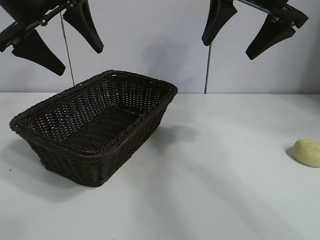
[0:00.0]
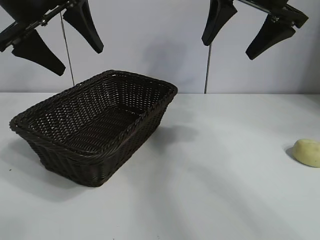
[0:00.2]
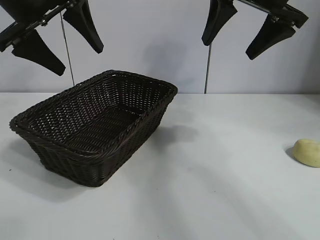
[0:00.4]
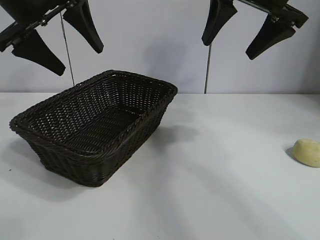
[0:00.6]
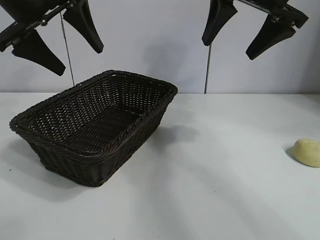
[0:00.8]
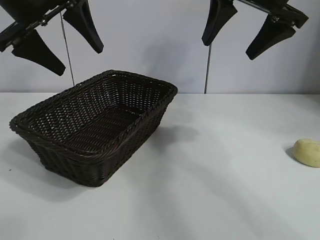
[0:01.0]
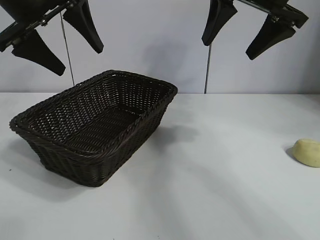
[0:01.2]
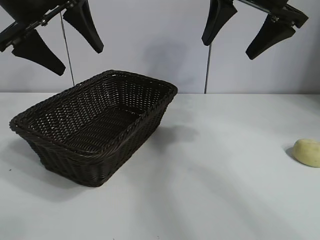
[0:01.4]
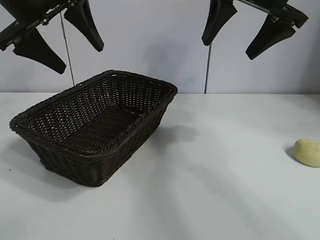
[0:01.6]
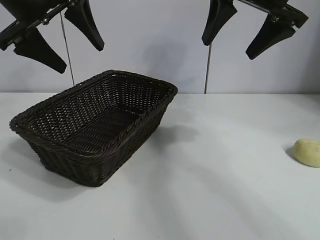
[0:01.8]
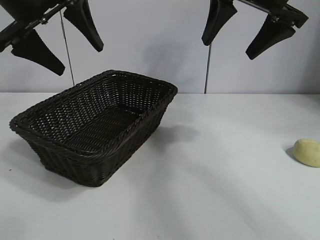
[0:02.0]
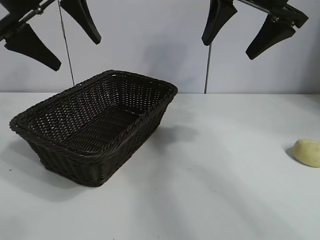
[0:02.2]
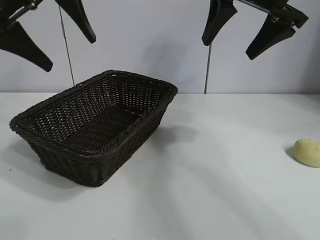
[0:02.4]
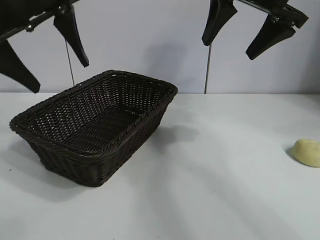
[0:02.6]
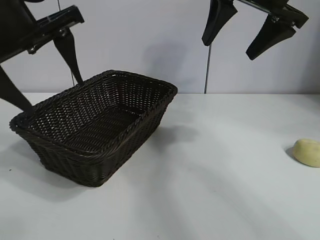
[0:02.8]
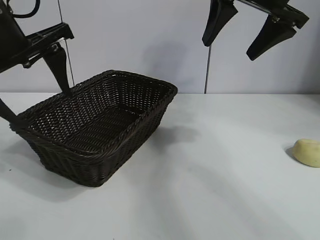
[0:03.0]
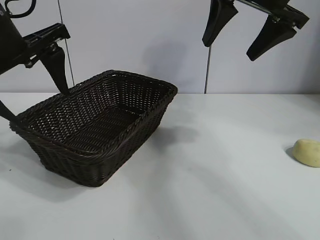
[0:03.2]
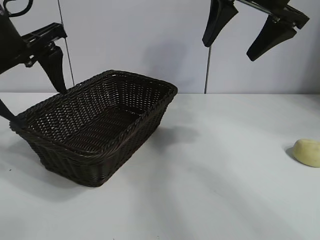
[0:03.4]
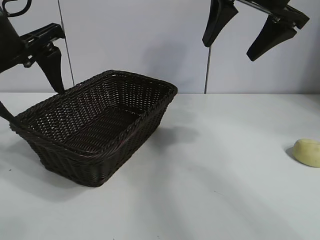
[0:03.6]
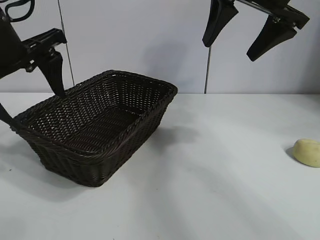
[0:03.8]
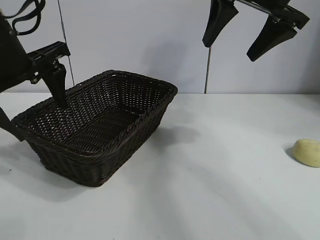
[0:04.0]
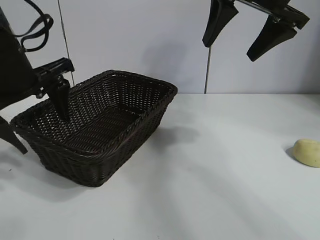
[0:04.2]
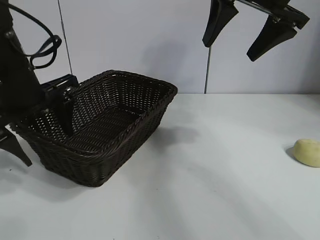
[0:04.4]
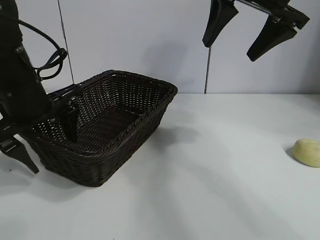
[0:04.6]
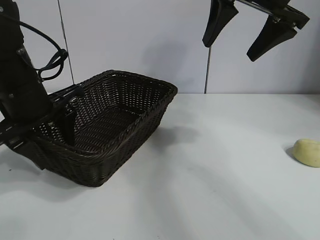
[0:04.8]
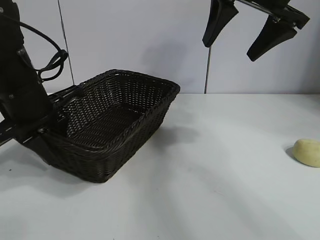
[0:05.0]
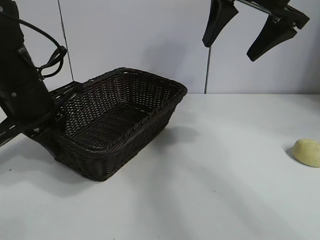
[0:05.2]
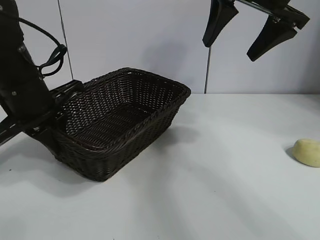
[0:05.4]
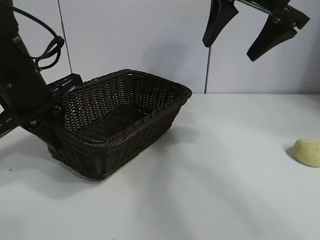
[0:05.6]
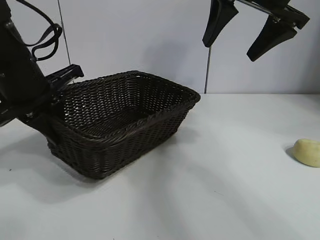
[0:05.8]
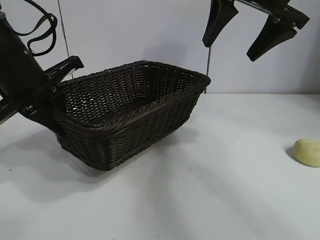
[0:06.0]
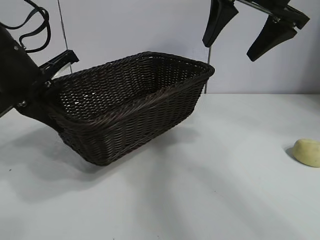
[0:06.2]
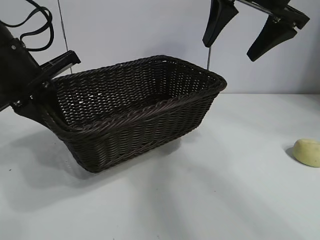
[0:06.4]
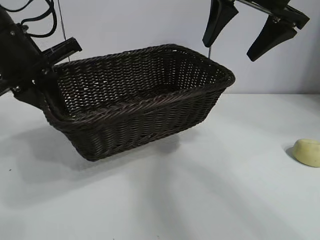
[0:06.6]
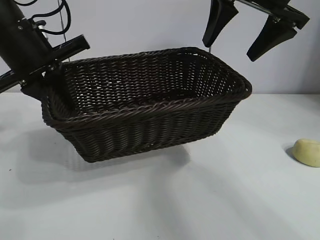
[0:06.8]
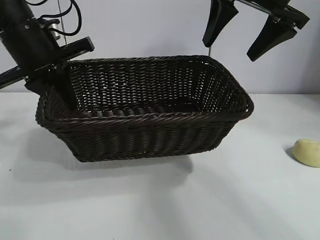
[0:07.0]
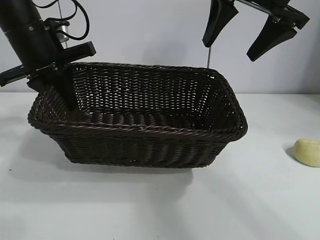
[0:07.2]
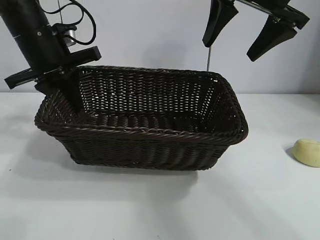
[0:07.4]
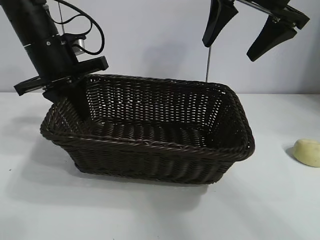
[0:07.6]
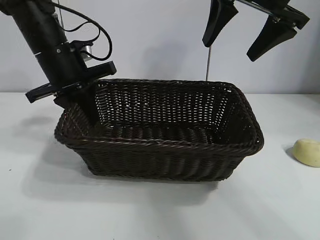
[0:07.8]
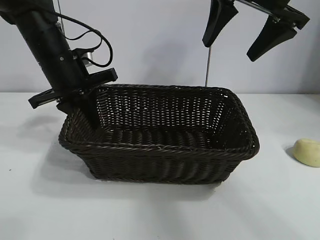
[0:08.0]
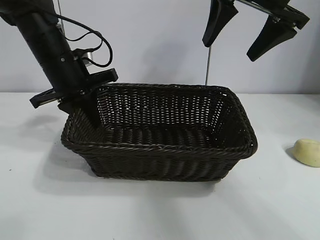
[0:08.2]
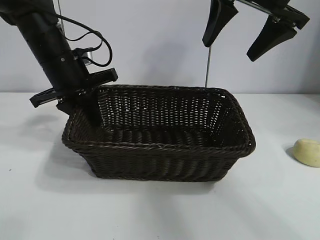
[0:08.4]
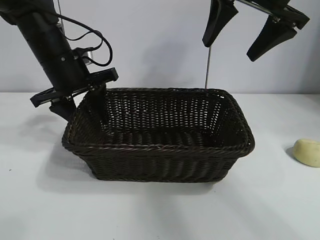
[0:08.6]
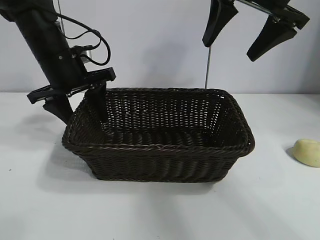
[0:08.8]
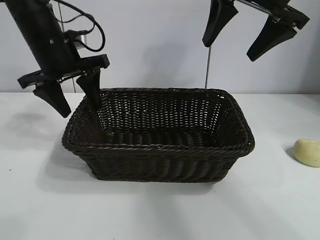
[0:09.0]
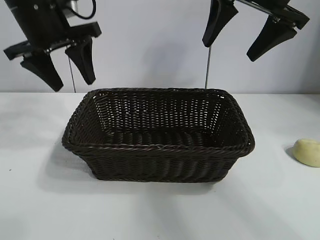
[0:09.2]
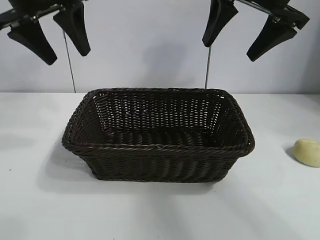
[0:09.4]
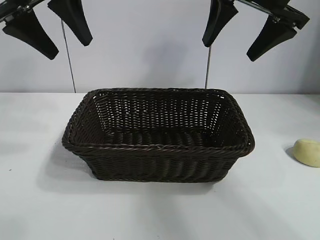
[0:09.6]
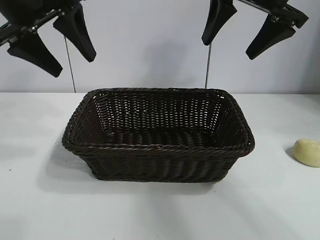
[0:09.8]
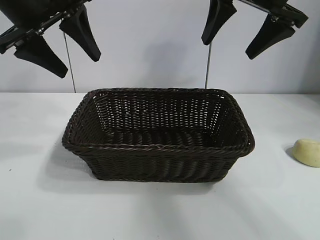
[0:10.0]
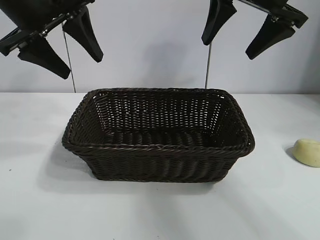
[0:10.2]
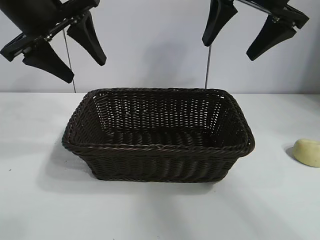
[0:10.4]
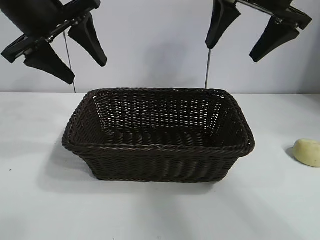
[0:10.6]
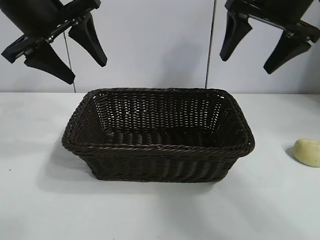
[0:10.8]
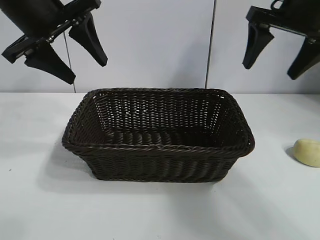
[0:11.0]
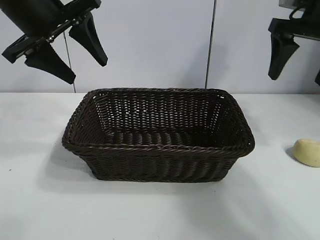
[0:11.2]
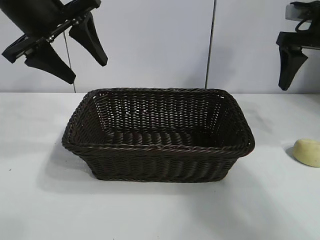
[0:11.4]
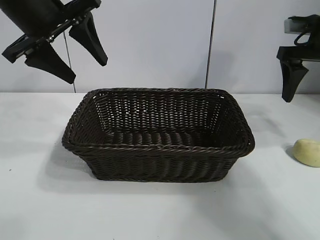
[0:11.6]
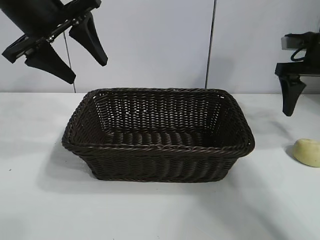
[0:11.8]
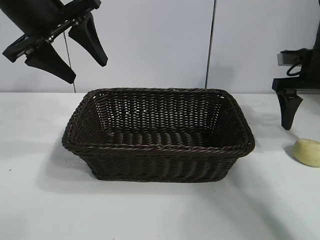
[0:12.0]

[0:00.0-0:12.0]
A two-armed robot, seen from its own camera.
Task of the whole recording: pick up the egg yolk pastry and put it into the basket.
Step, 1.4 to 5.0 s: Grasp the basket with left gripper.
Step, 5.4 to 8.6 s: Place the basket in the center of view with left gripper.

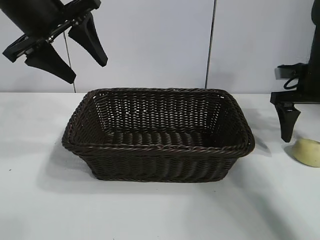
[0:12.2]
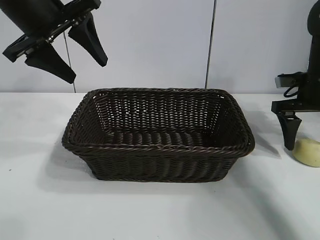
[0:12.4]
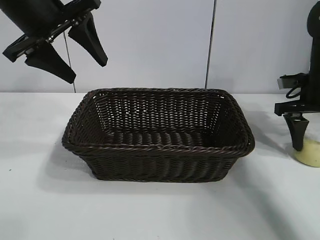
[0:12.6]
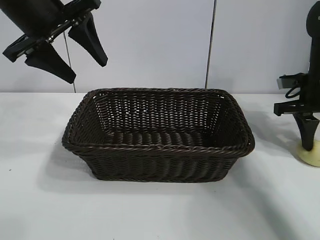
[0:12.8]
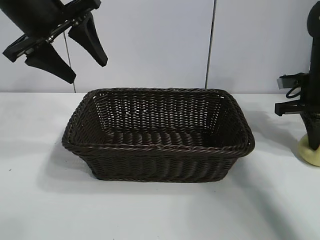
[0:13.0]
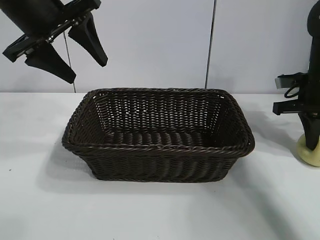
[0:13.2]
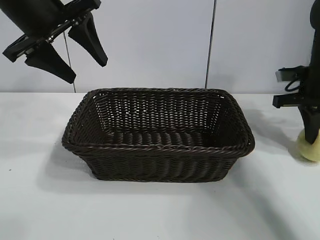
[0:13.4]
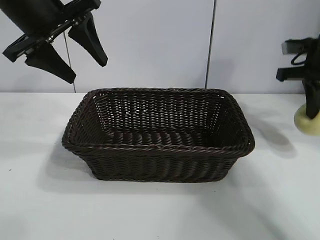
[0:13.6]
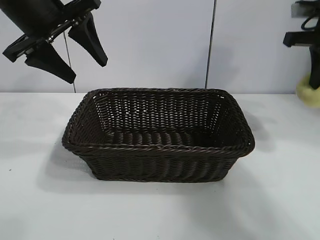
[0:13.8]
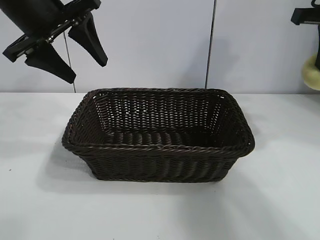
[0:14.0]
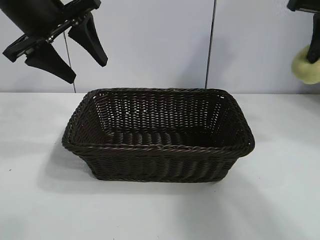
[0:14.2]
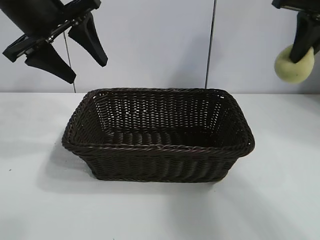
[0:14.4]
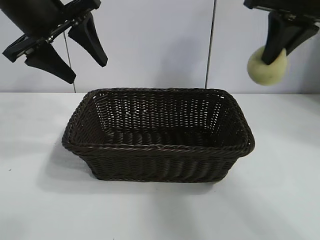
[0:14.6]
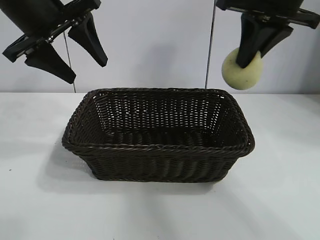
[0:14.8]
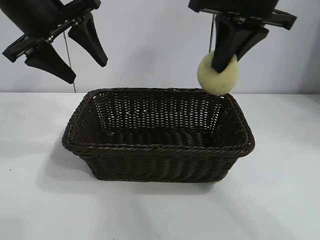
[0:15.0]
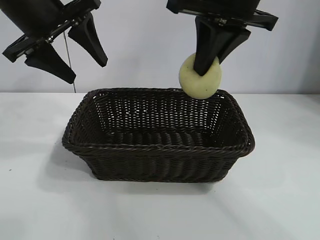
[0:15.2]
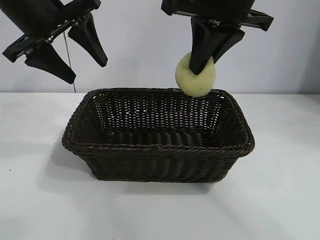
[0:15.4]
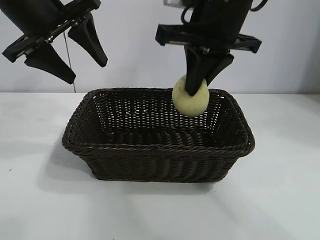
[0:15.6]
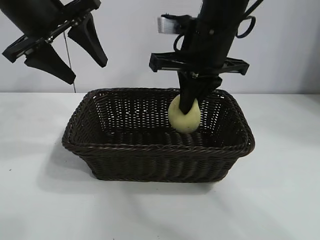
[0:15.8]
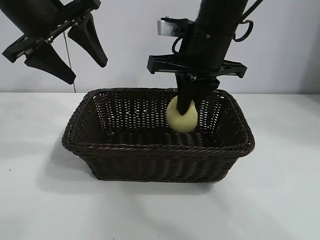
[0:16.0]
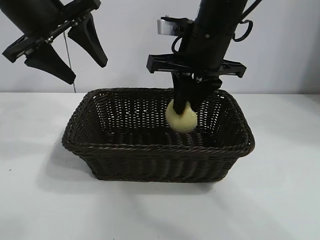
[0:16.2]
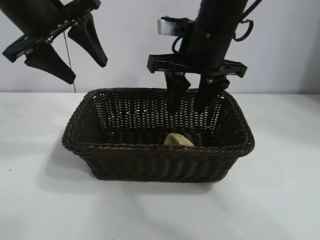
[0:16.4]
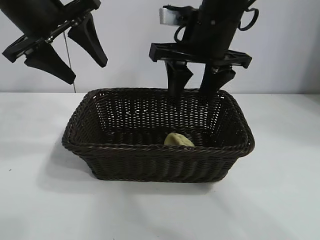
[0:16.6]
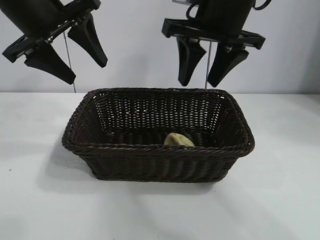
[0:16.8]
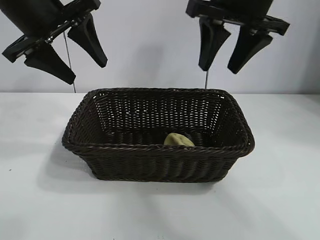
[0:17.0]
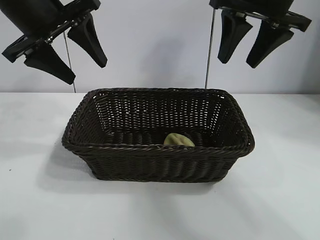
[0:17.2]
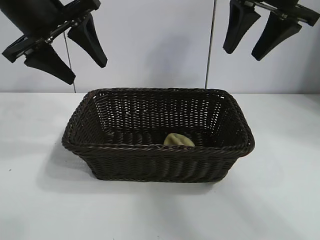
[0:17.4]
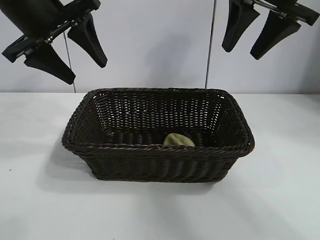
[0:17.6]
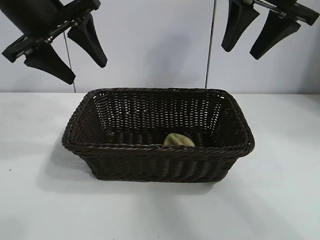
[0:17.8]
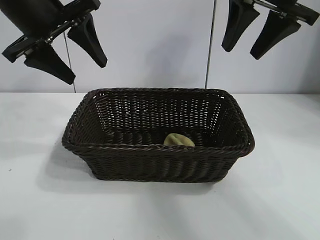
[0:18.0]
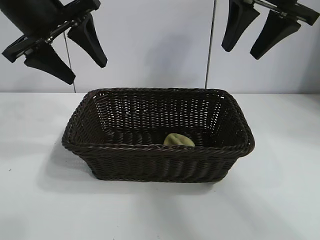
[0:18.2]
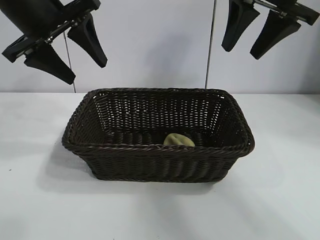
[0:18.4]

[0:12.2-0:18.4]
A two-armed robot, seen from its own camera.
Task of the whole recording: pick up the egg yolk pastry and put it into the basket.
Step, 13.4 to 16.4 s: Place the egg yolk pastry in the basket with right gripper.

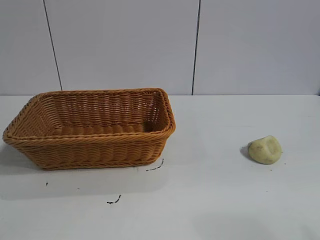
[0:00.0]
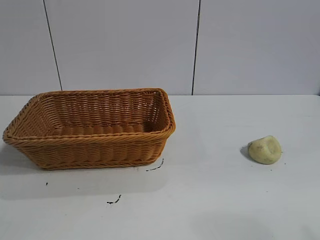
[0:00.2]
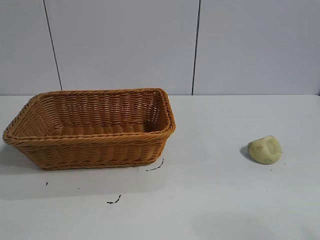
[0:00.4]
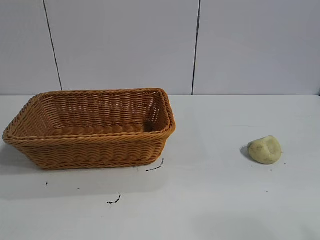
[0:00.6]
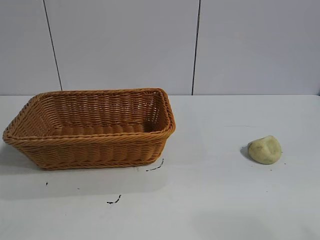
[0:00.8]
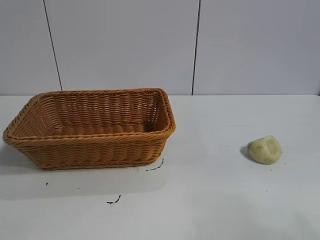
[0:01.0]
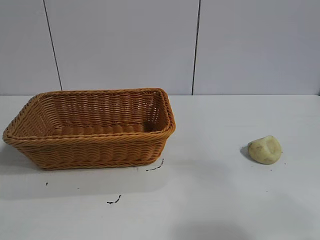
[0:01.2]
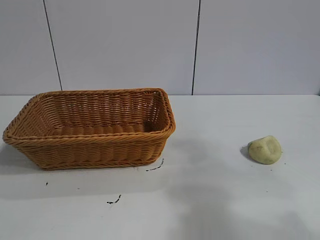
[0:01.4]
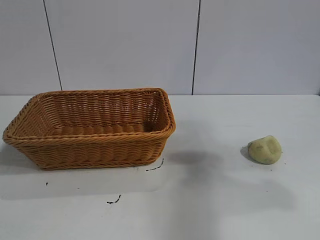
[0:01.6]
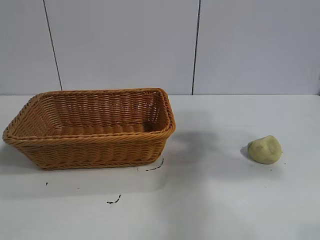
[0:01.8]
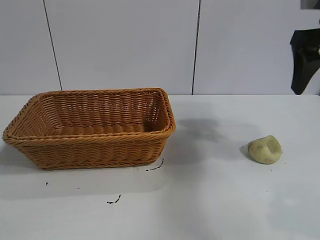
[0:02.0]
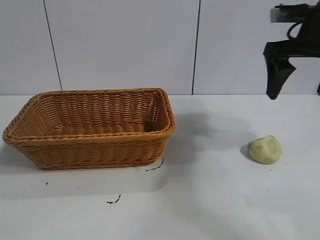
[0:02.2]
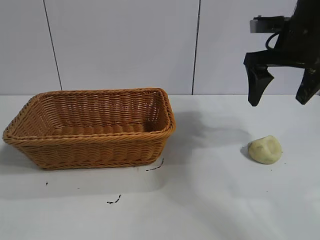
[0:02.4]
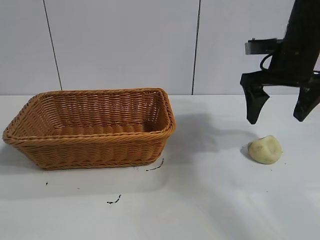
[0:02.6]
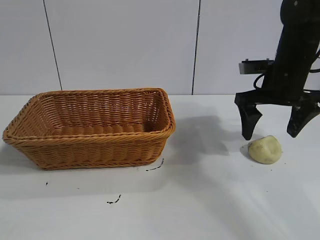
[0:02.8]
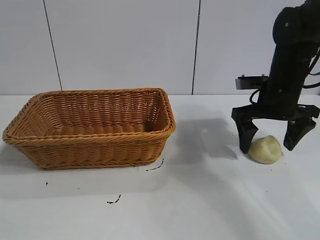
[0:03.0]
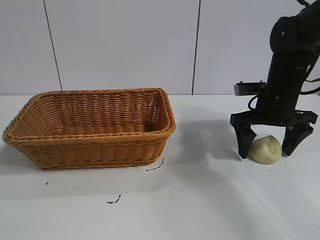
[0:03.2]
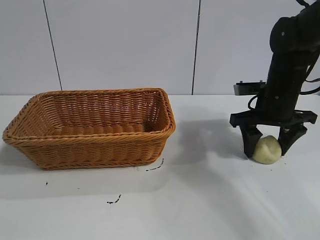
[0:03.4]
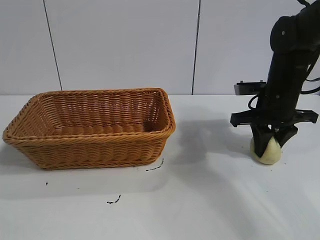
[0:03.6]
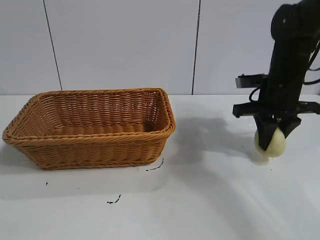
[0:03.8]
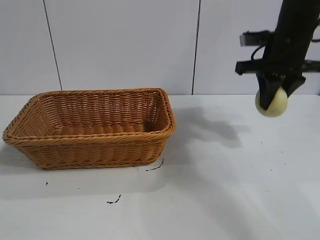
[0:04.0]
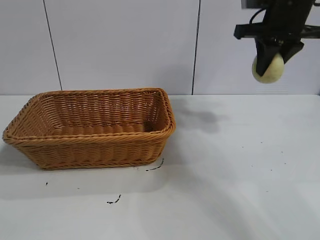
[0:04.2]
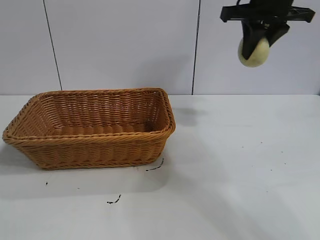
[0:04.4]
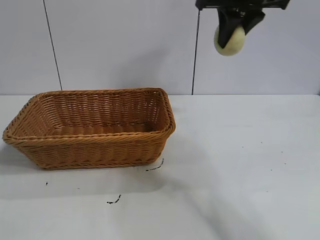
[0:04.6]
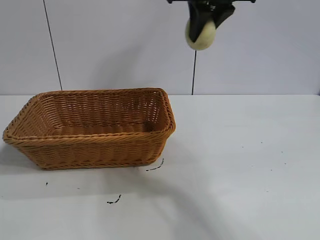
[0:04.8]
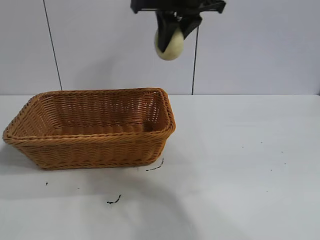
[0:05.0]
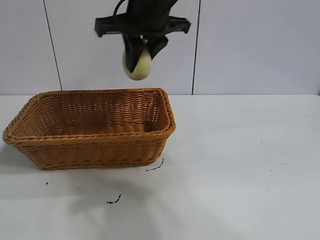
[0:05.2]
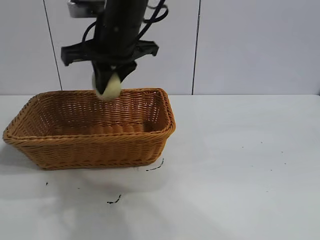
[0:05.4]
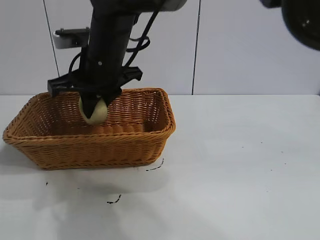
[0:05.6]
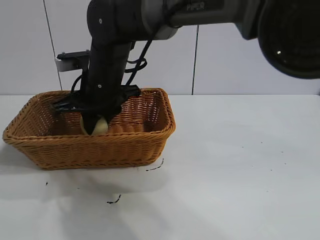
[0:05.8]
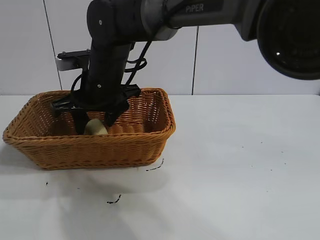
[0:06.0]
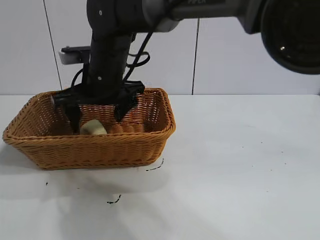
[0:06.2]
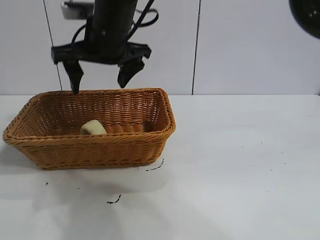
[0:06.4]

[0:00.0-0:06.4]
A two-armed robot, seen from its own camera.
Task of the whole recording: pick up the egg yolk pastry and put it into the basket.
Step, 0.8 to 3.6 s: Grasp egg yolk pastry with right gripper.
Step, 3.8 to 6.2 s: Place the egg yolk pastry in the basket with right gripper.
